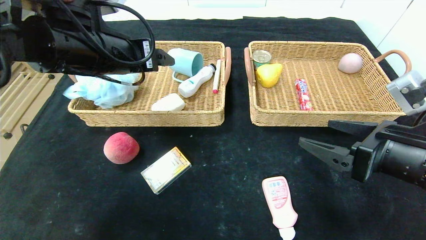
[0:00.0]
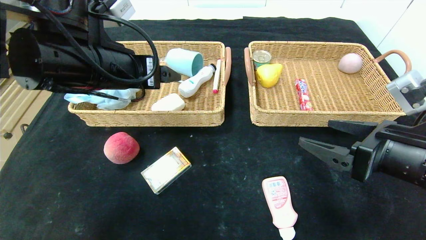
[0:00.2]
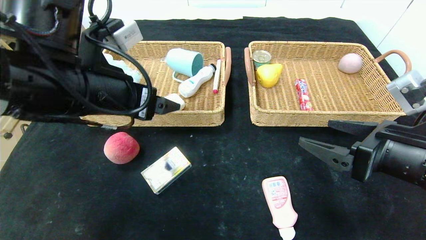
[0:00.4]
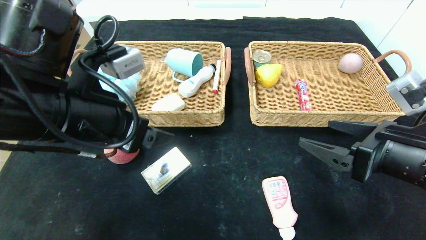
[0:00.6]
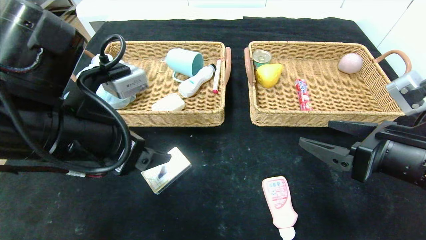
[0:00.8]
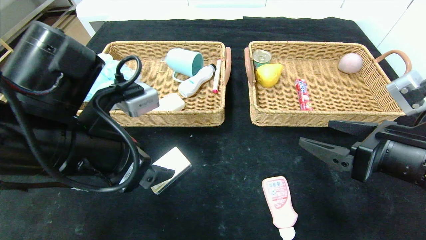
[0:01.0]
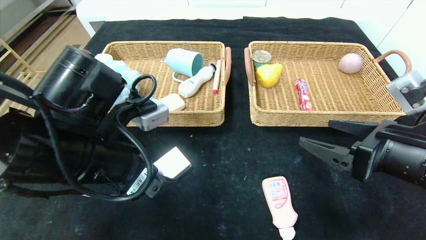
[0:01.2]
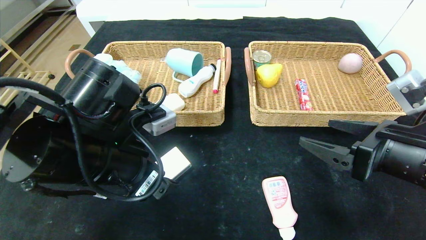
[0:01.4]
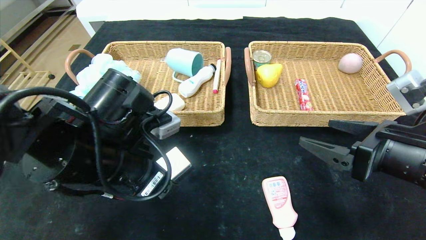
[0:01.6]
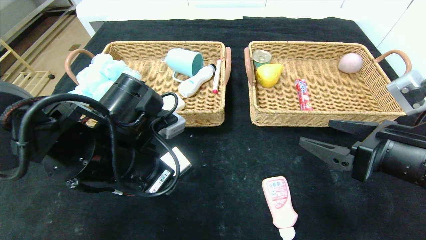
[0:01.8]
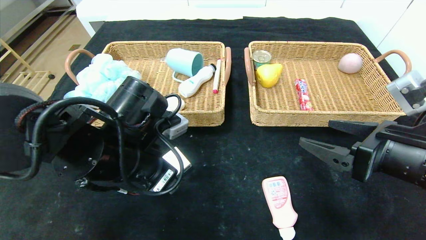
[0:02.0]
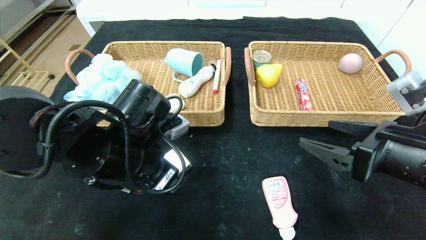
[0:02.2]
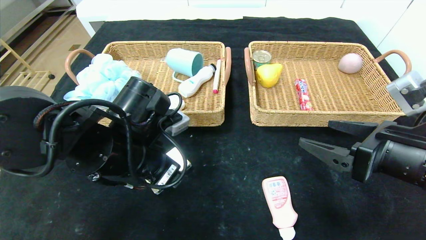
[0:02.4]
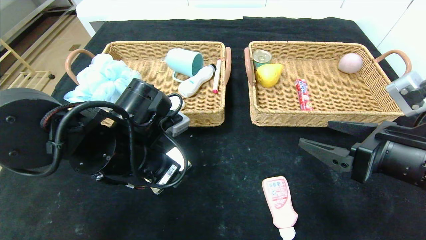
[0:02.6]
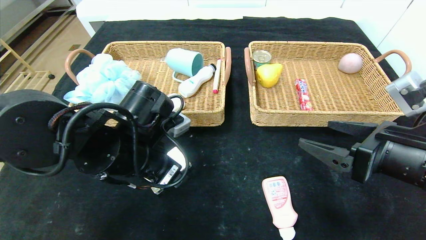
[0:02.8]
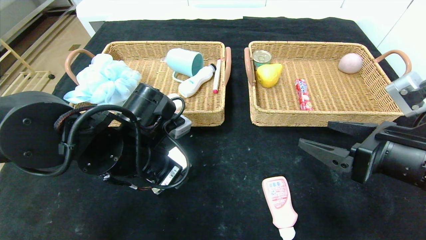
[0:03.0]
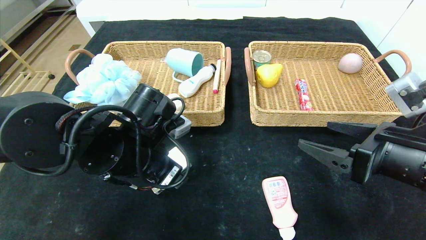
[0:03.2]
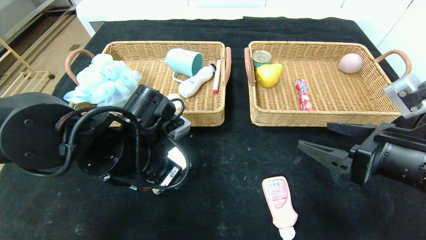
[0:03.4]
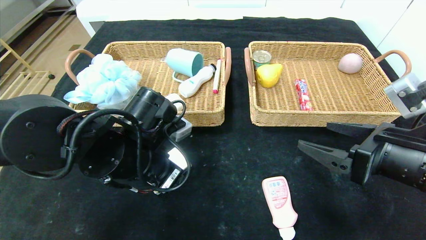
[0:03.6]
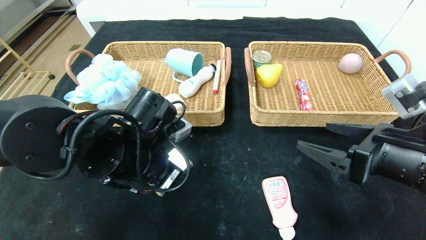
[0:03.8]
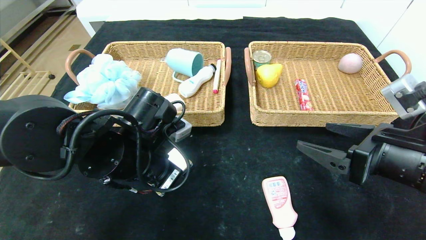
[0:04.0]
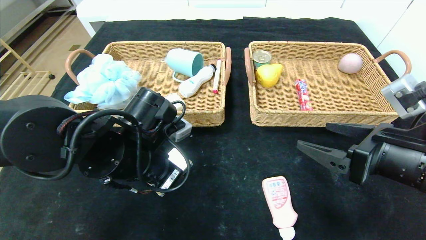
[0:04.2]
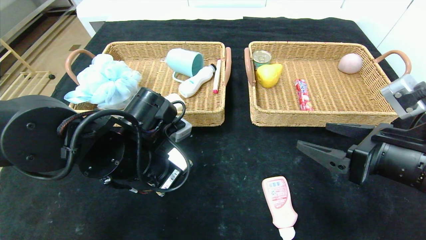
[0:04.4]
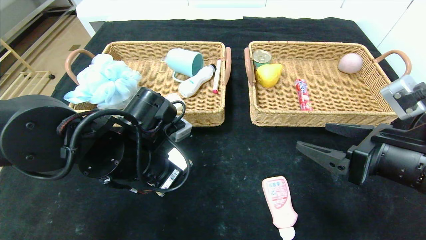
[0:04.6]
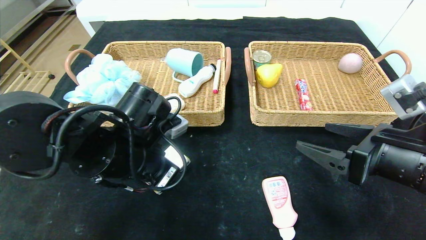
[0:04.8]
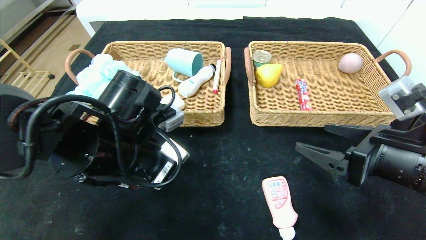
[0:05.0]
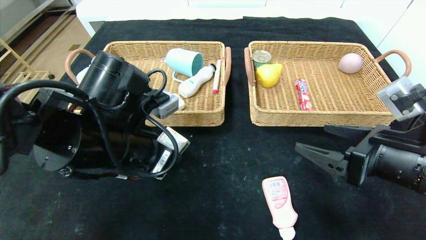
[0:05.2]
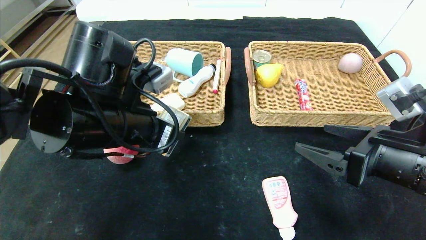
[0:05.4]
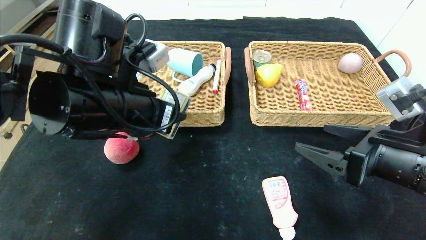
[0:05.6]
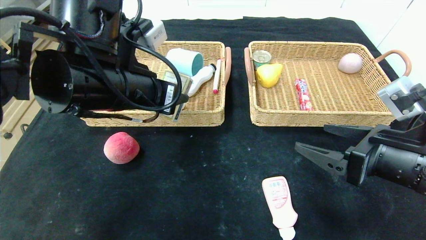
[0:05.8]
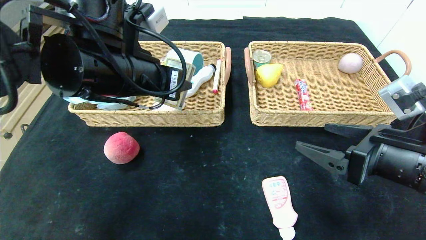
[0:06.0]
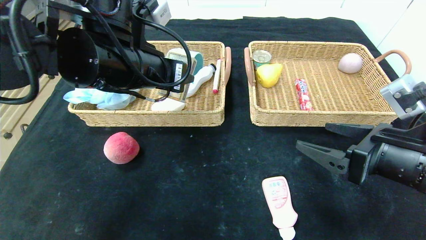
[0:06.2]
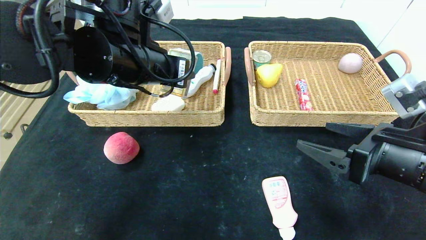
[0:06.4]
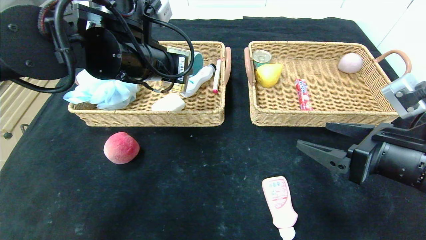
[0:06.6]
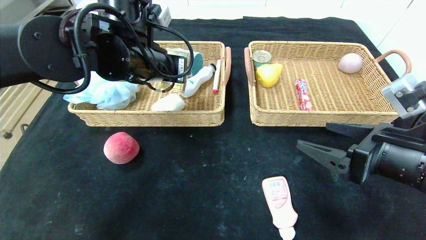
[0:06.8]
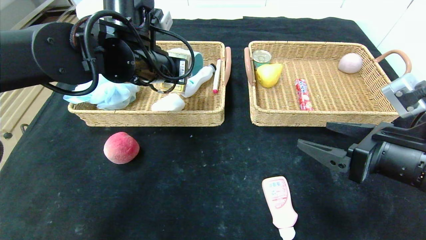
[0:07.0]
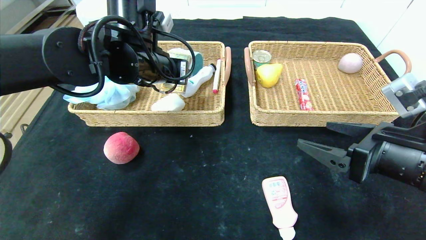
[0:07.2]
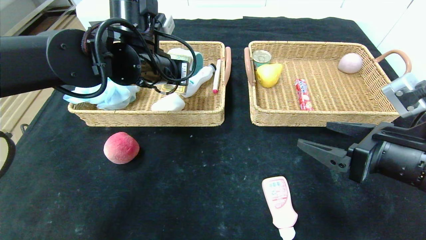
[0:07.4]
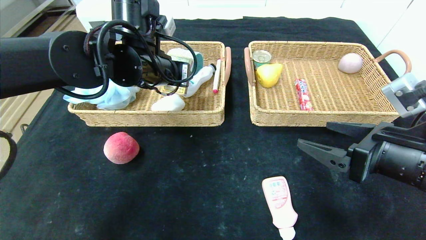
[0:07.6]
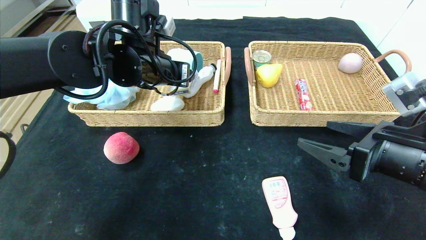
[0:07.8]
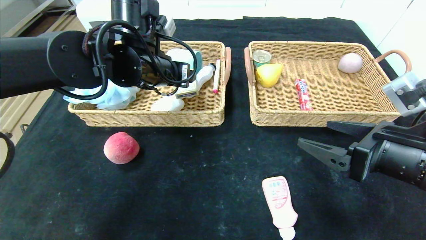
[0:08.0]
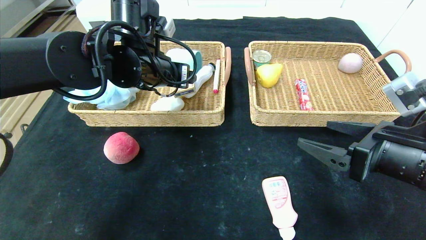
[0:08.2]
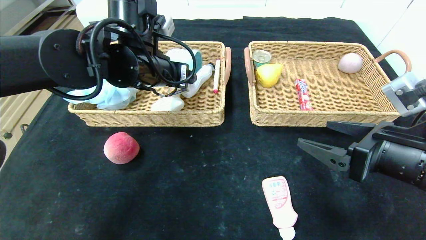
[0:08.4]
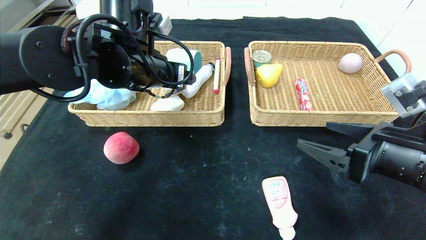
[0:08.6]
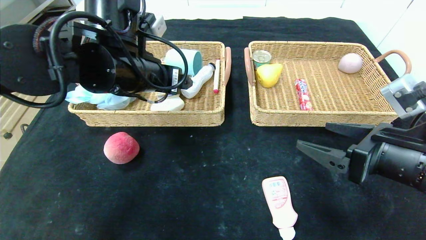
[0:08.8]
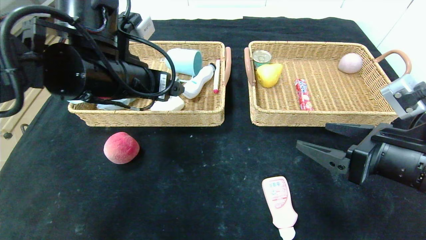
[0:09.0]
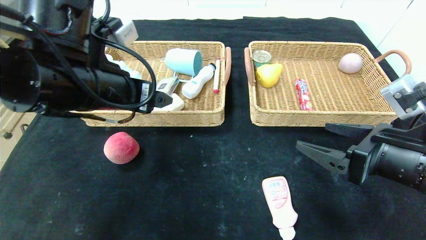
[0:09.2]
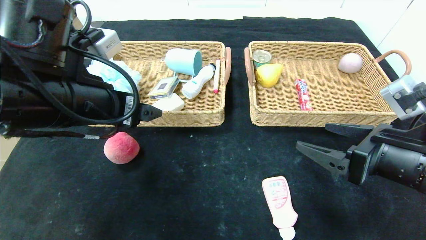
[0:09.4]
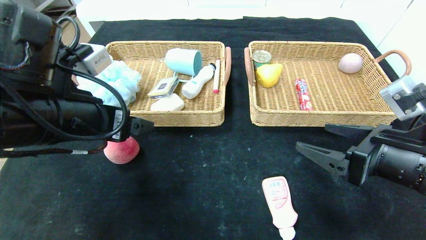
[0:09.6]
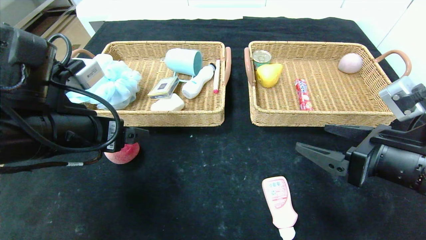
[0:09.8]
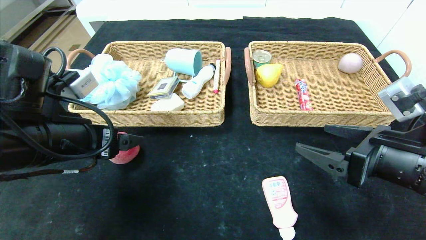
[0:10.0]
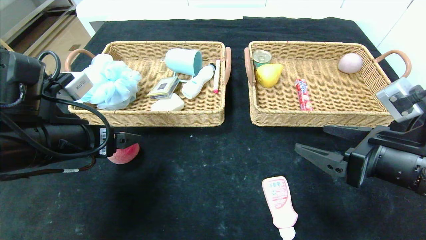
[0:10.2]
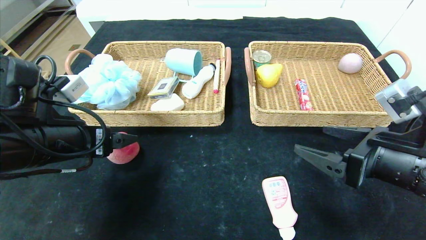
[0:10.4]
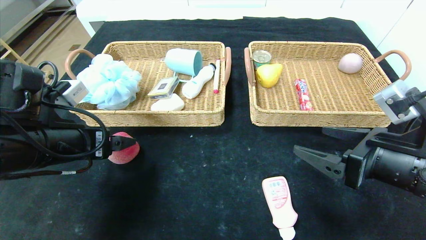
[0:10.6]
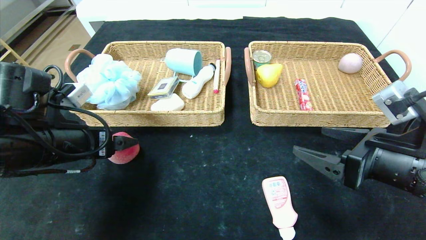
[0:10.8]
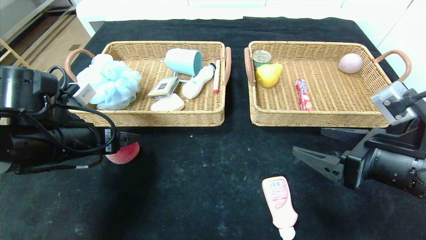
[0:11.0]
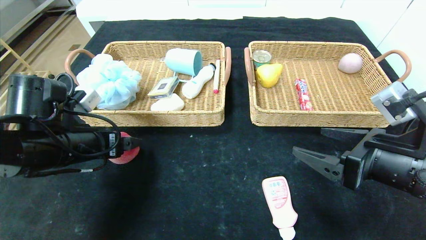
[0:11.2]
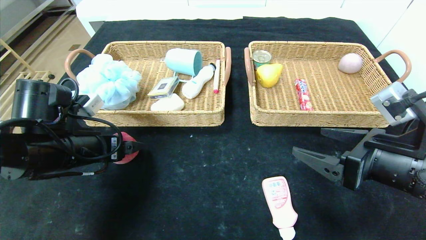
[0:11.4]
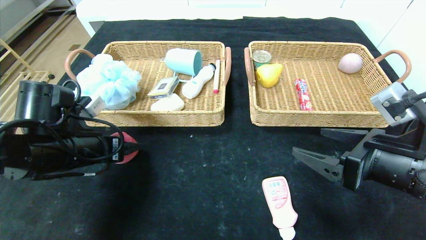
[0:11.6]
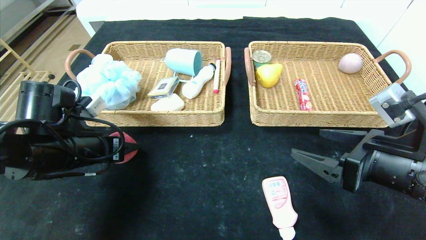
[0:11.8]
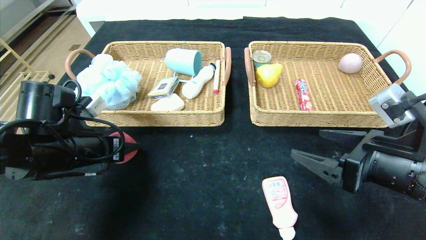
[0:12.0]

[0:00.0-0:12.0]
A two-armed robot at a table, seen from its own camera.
Step, 0:01.0 to 0:09.6: Pick up the playing cards and put it in the left basket.
0:00.0 to 0:01.6: The left gripper moves downward and backward, roughly 15 cm.
0:01.6 to 0:03.0: The grippers move only a little.
0:03.0 to 0:04.4: The left gripper closes up.
0:04.4 to 0:06.0: The left gripper shifts approximately 10 cm upward.
0:06.0 to 0:07.6: The left gripper moves forward, approximately 10 cm.
0:07.6 to 0:09.0: The left gripper moves backward, some 10 cm.
0:09.0 to 0:10.4: The left gripper moves to the left, downward and backward, roughly 10 cm.
0:10.4 to 0:12.0: The left gripper moves roughly 5 cm, and closes.

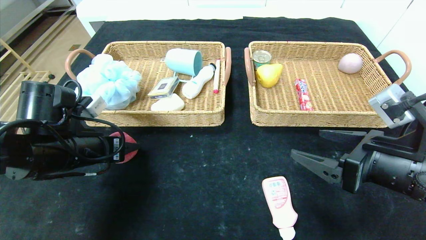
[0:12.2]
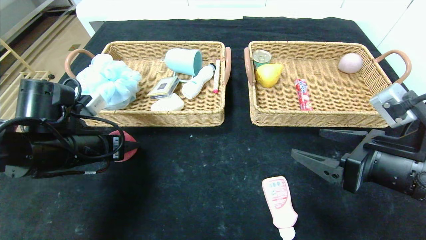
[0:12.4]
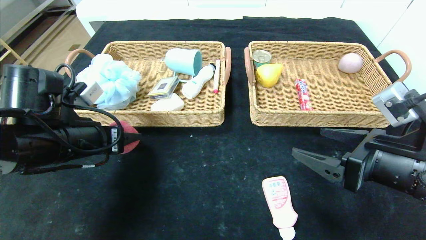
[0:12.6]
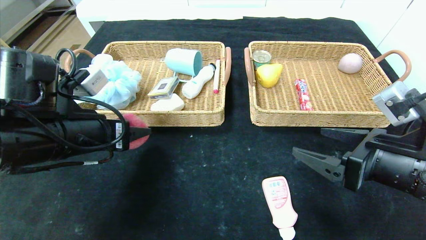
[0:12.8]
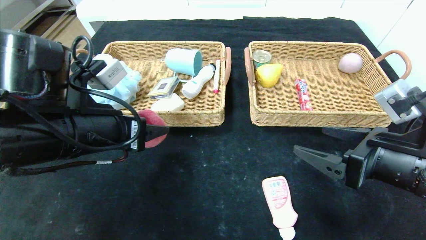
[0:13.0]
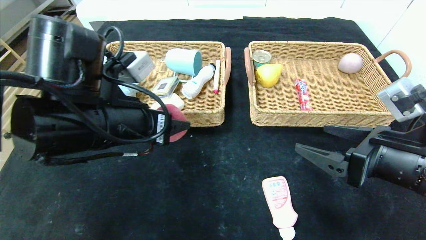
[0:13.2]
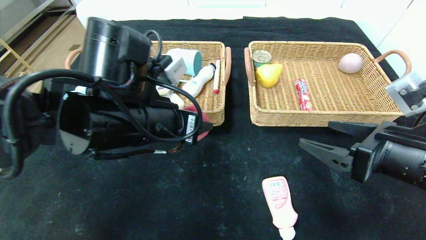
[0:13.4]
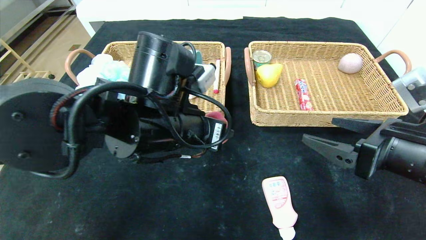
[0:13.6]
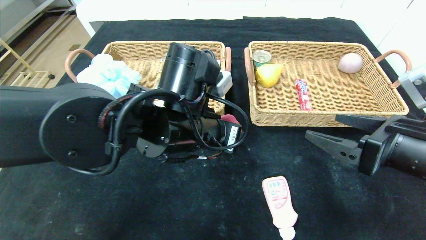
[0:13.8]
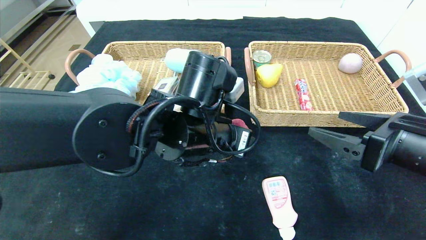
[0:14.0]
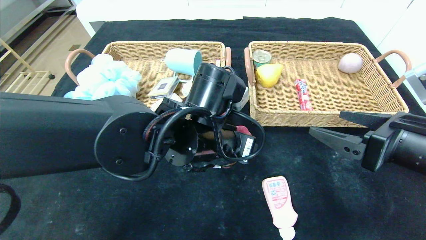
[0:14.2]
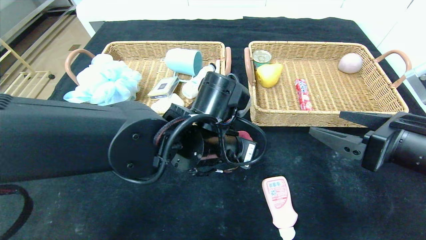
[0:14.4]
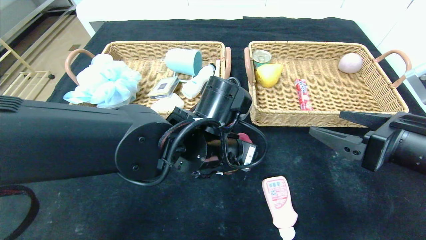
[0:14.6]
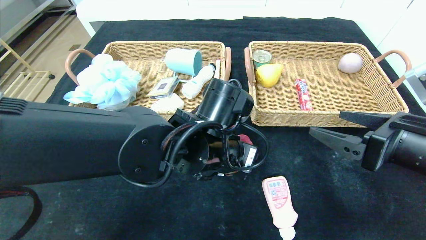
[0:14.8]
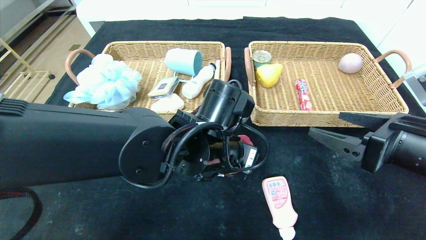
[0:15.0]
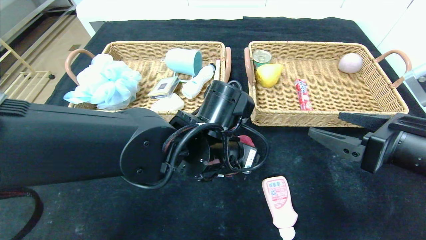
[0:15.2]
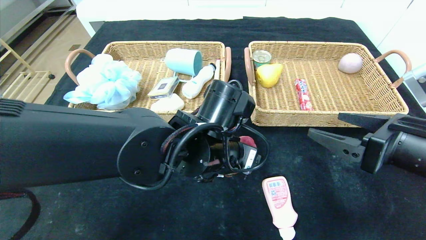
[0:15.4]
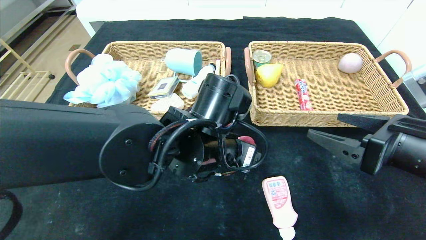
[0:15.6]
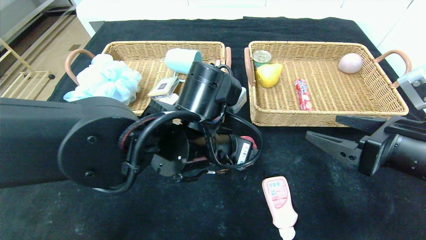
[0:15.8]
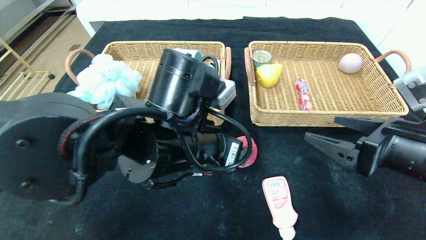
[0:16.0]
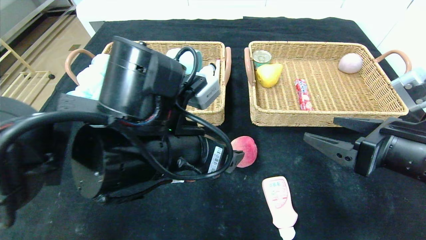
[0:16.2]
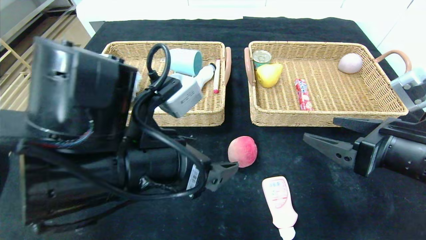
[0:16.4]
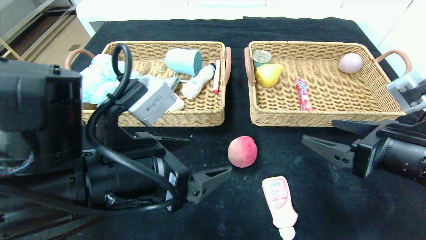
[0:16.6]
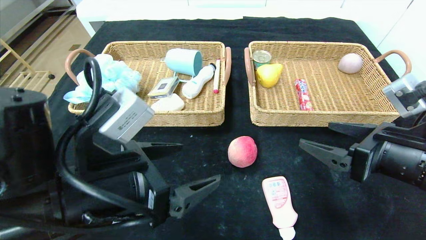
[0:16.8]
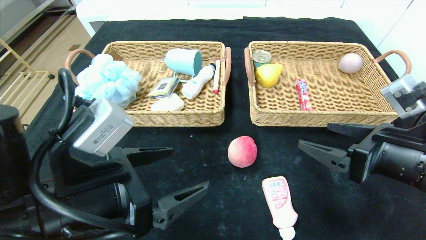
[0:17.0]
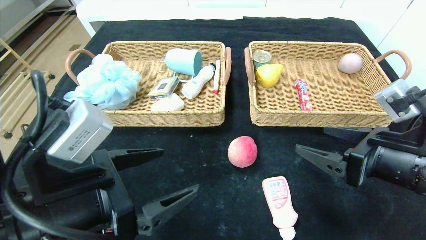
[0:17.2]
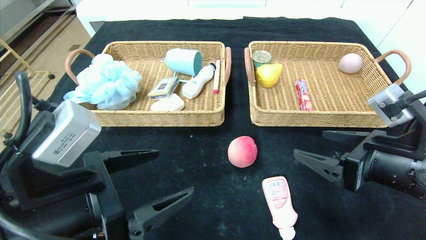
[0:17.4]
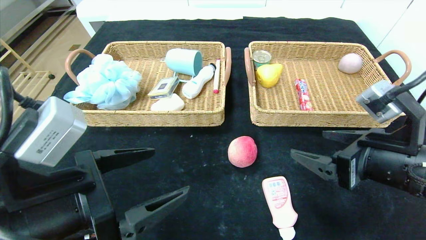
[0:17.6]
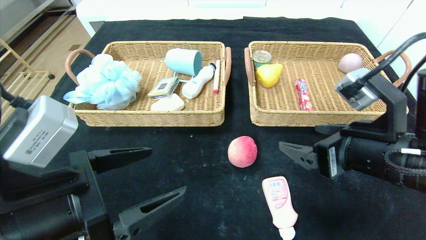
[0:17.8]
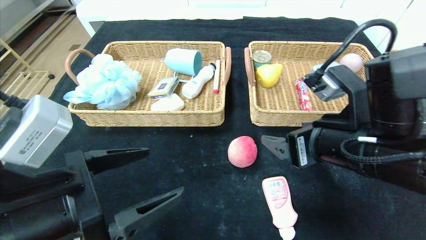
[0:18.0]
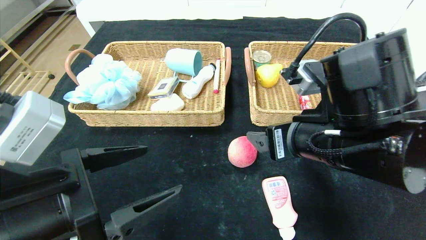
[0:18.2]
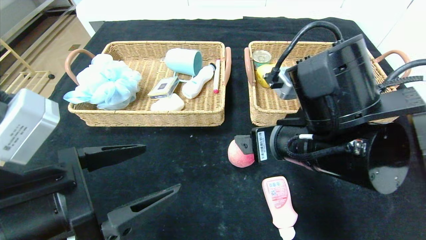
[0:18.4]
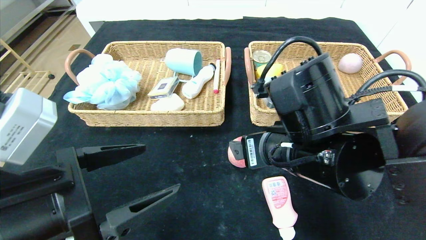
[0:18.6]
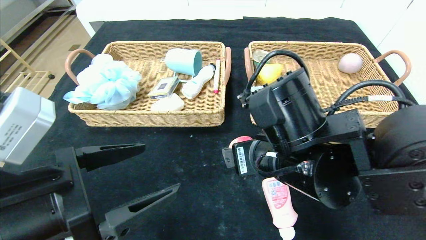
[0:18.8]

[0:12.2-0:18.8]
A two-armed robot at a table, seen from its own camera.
Step, 0:12.2 to 0:16.4: Place the peach in the center of the table.
0:12.2 to 0:13.8: The left gripper goes roughly 20 cm to the right.
0:15.4 to 0:17.2: The left gripper shifts approximately 20 cm to the left and backward.
0:17.2 to 0:18.8: The right gripper moves to the left, about 15 cm.
